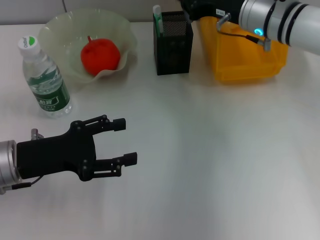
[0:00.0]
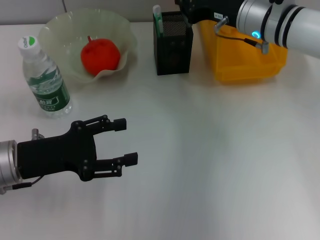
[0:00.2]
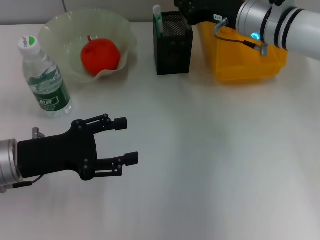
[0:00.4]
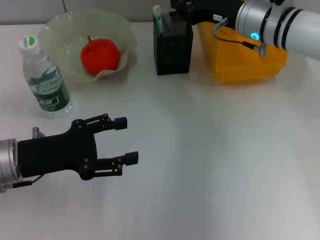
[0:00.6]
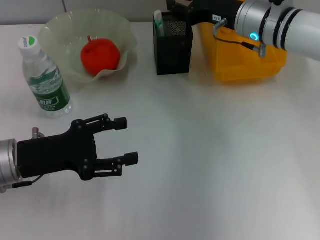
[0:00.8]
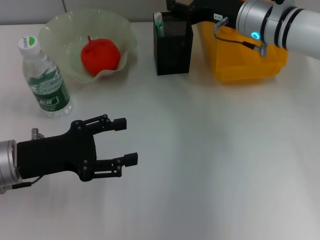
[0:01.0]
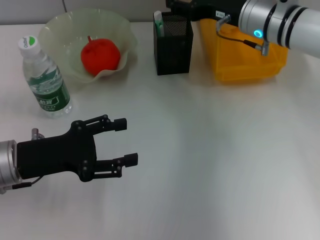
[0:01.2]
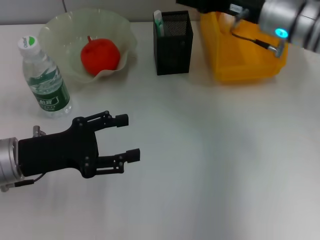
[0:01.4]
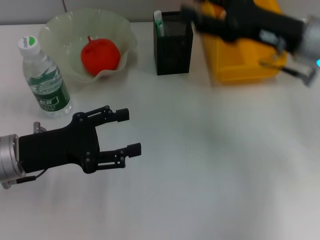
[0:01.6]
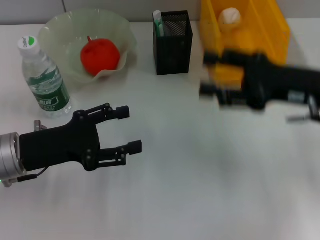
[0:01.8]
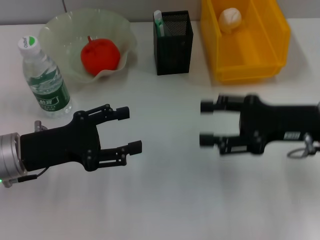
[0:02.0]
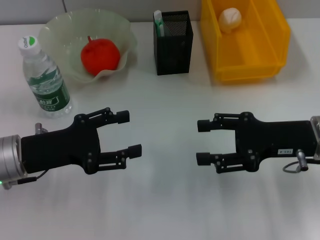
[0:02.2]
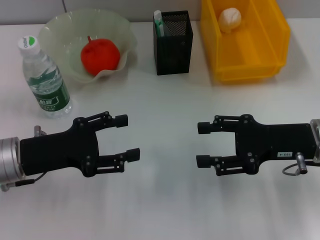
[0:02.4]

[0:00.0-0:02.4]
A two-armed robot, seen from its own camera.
0:00.0 to 0:01.2: The right gripper opens up.
0:01.2 to 0:02.4: The right gripper heads backward and to the right, covering approximately 15 cm.
